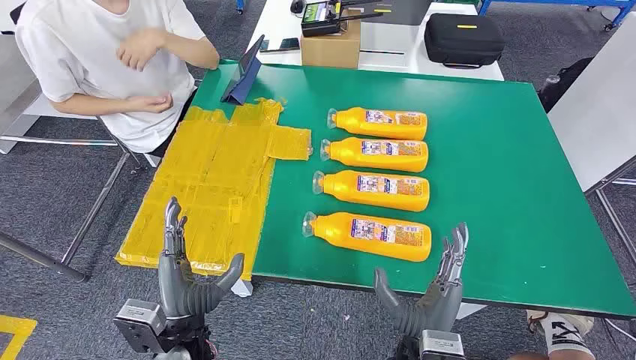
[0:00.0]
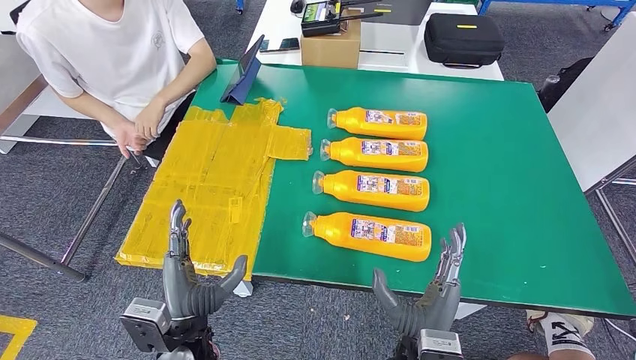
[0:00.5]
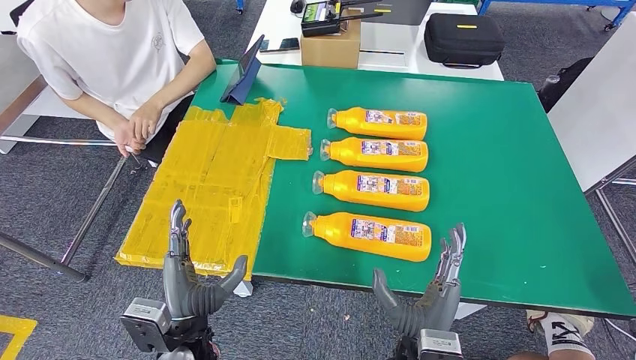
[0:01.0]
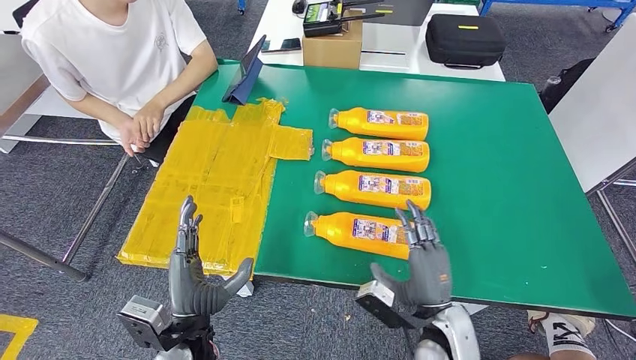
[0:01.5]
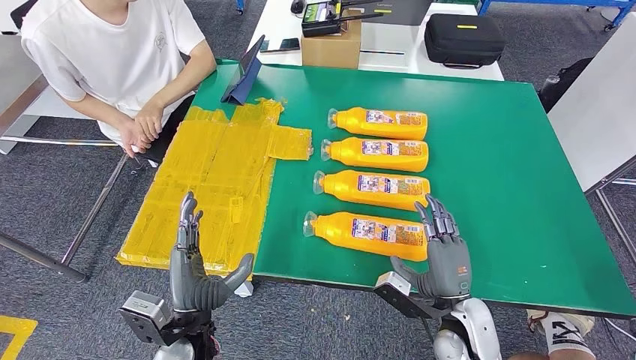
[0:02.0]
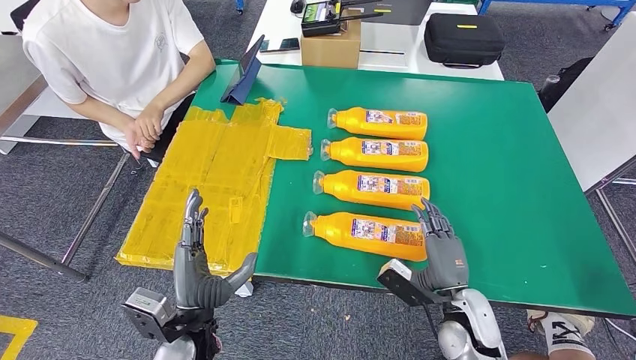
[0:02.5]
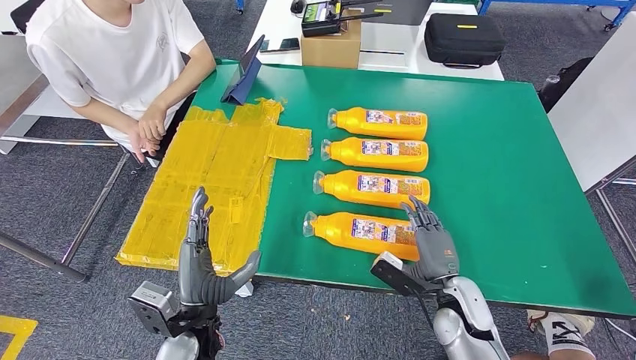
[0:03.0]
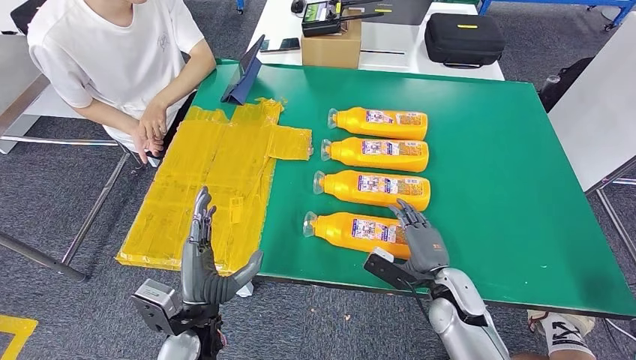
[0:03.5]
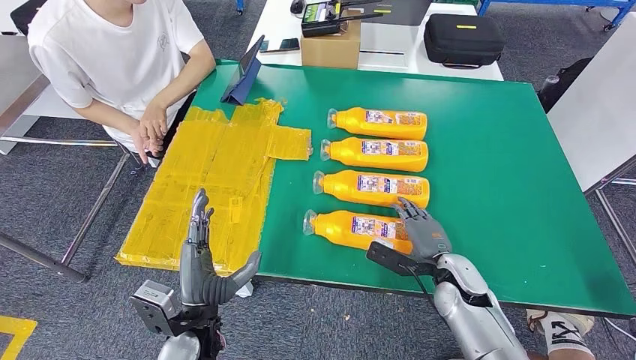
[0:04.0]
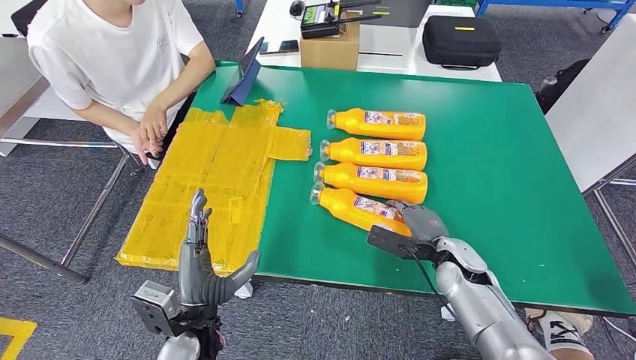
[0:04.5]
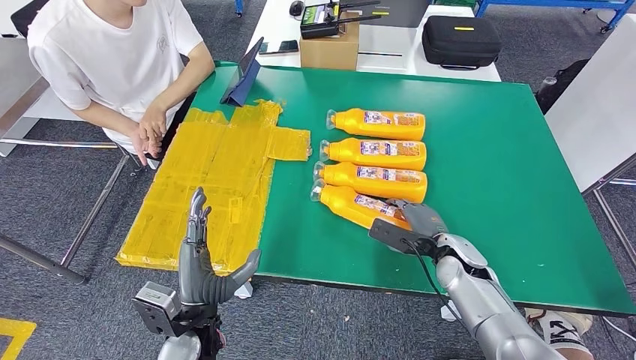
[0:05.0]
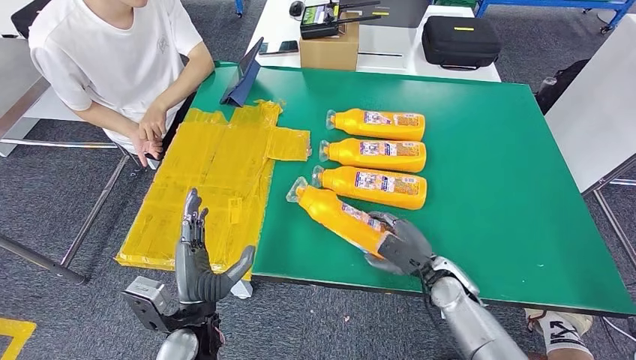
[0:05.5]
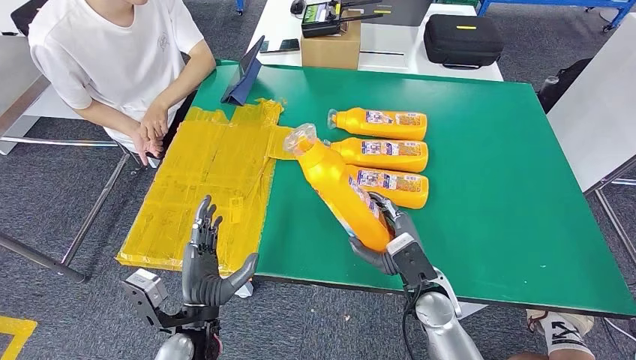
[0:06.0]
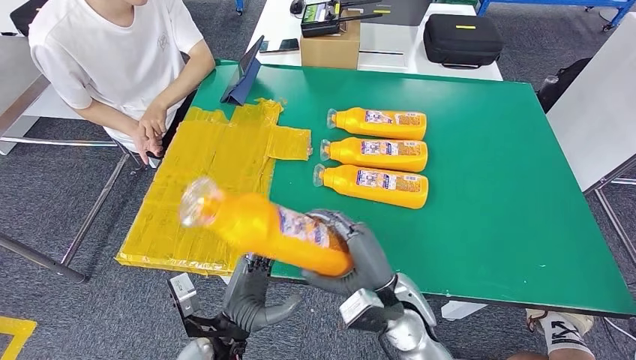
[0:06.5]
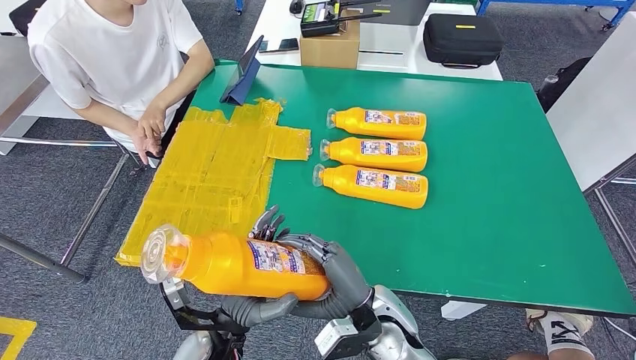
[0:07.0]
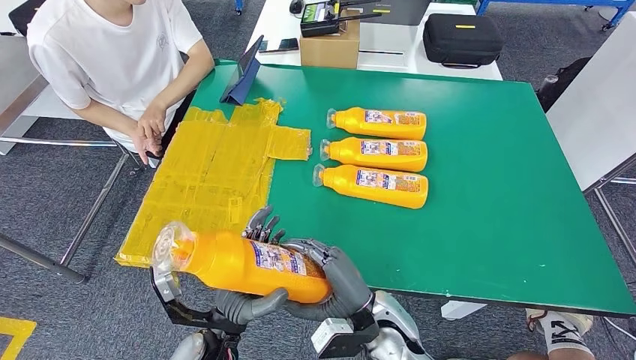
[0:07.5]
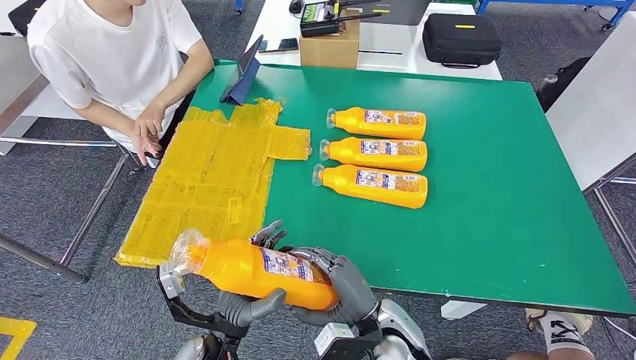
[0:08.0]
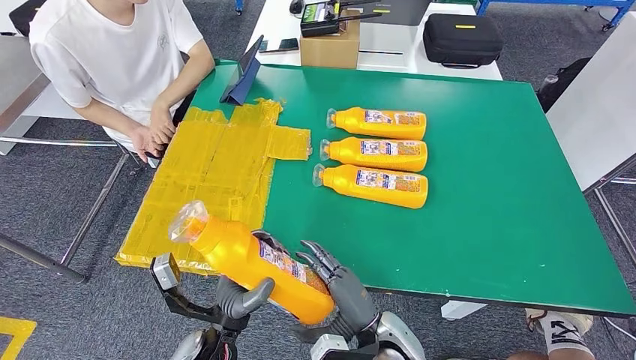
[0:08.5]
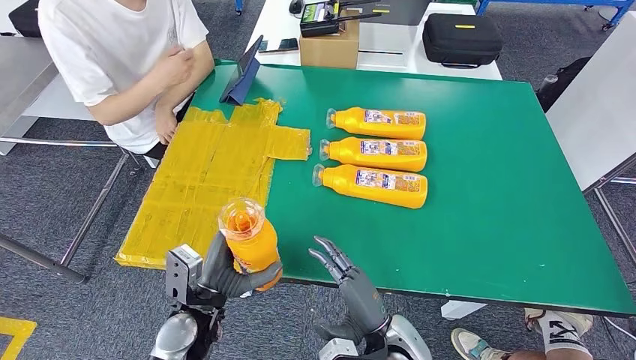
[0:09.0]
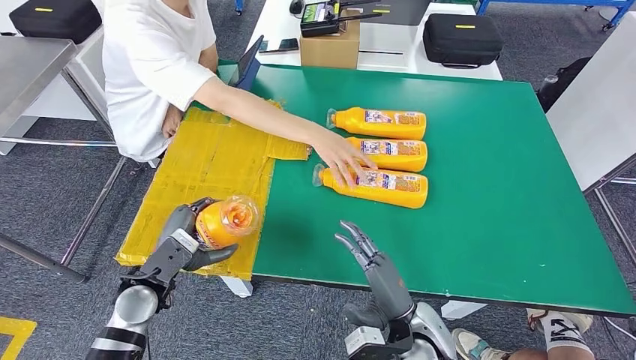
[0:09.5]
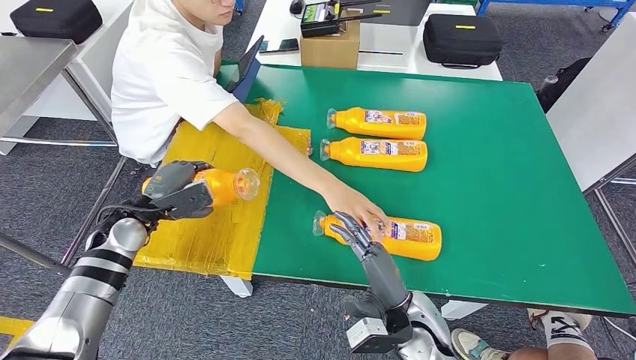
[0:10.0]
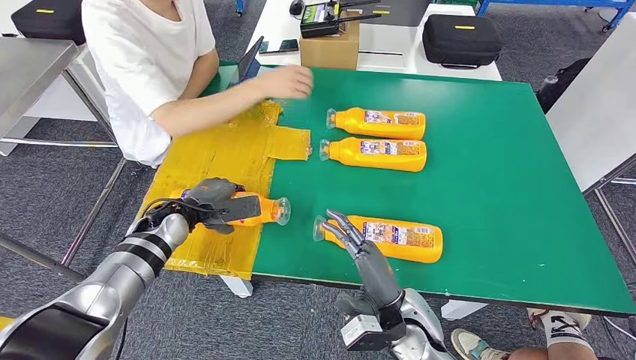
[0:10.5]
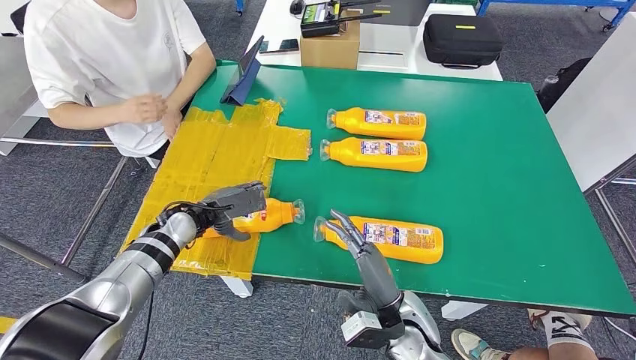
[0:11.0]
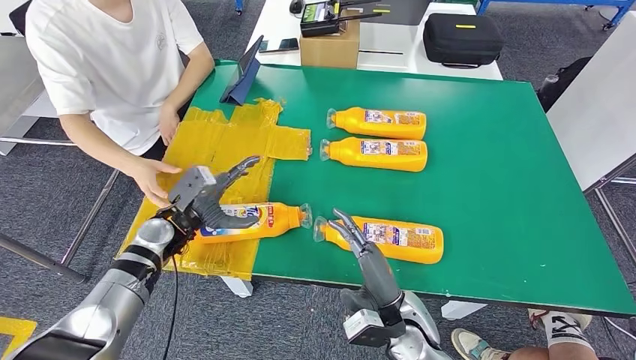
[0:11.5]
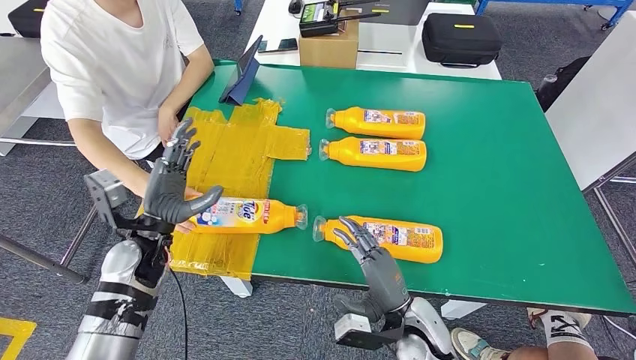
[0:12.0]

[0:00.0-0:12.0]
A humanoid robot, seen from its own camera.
Step, 0:00.0 to 0:06.0: Take the fast-moving consumer goods bottle from the table.
Step, 0:06.5 to 0:10.5: Flip the fast-moving consumer goods bottle to the front side.
0:02.0 to 0:04.0: The right hand is displaced forward by about 10 cm.
0:04.0 to 0:06.0: The right hand shifts approximately 5 cm to the left.
0:06.0 to 0:08.0: The right hand is displaced backward and to the left by about 10 cm.

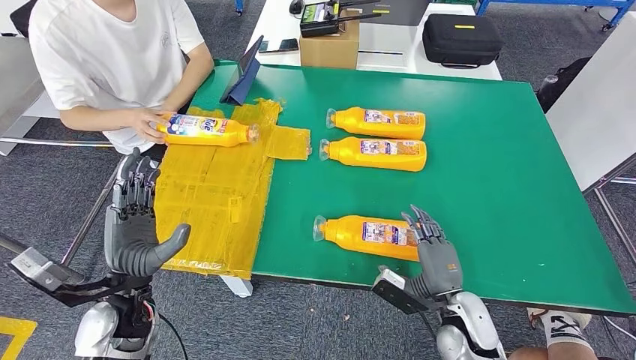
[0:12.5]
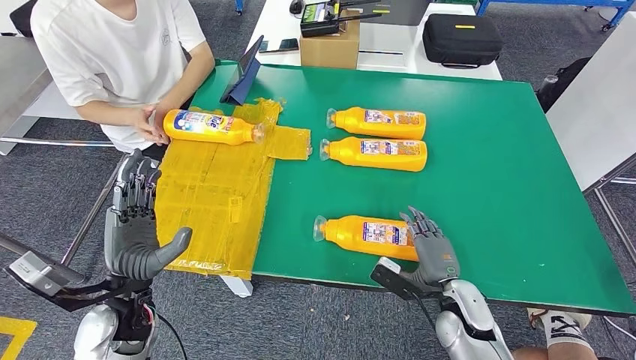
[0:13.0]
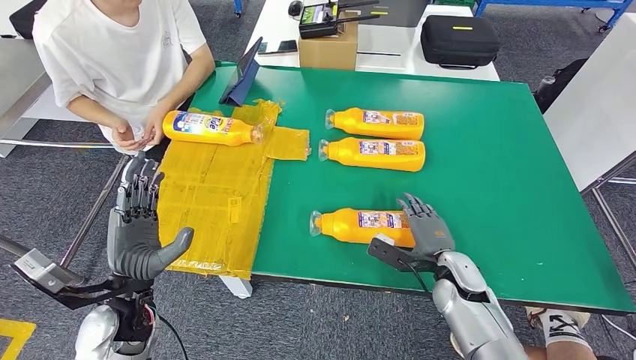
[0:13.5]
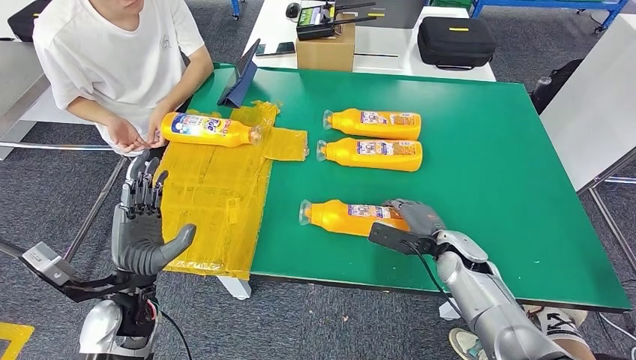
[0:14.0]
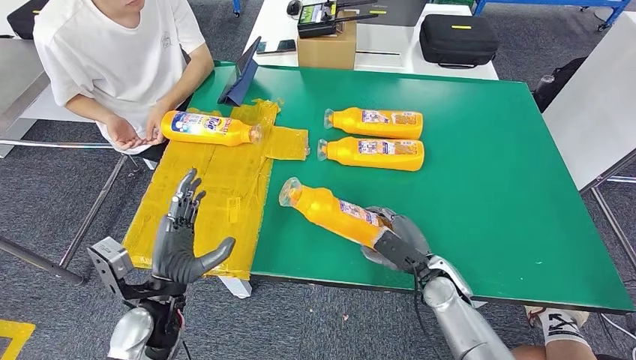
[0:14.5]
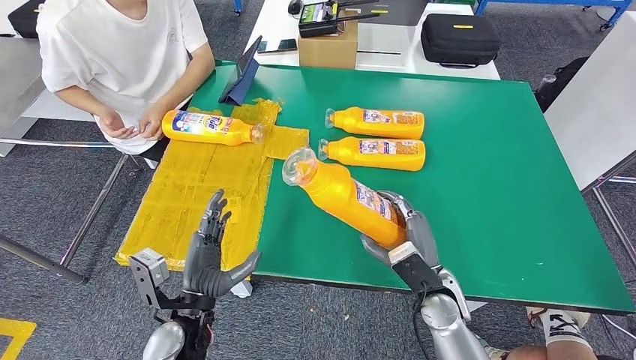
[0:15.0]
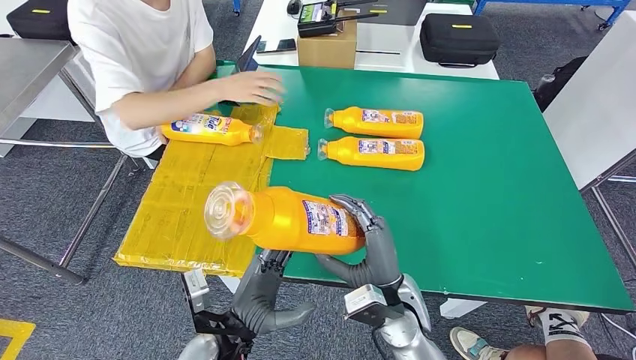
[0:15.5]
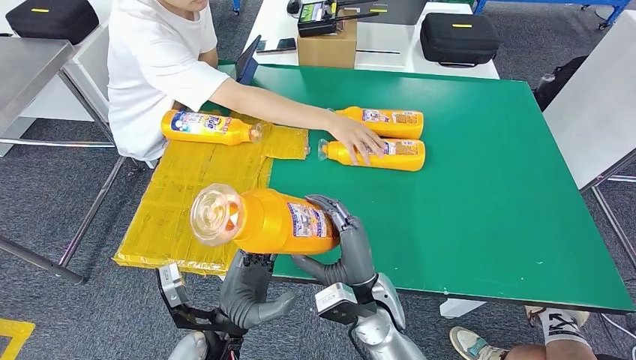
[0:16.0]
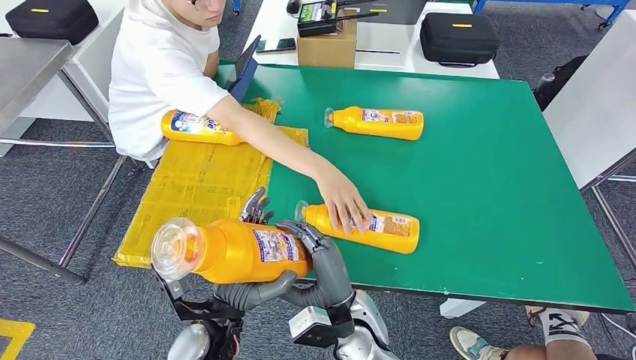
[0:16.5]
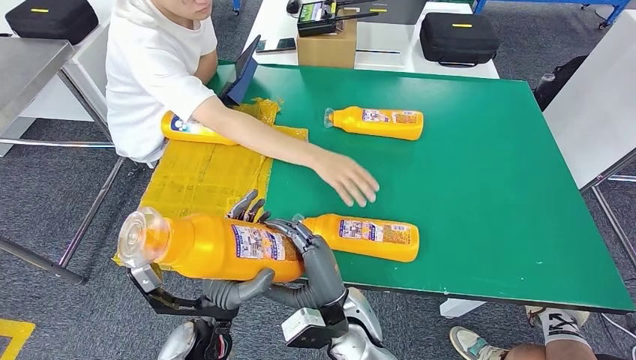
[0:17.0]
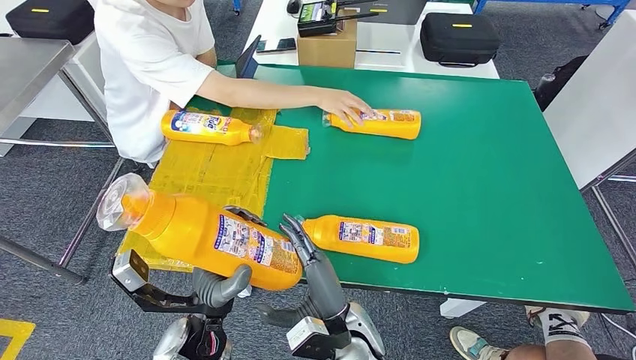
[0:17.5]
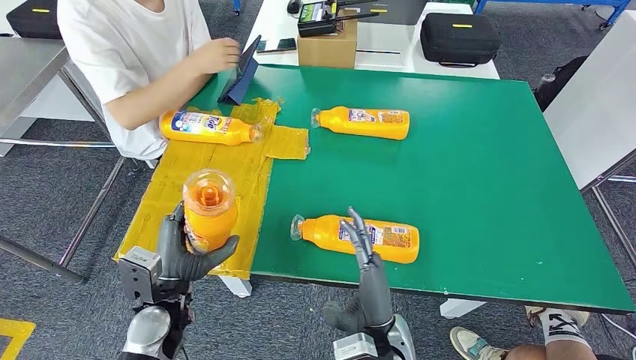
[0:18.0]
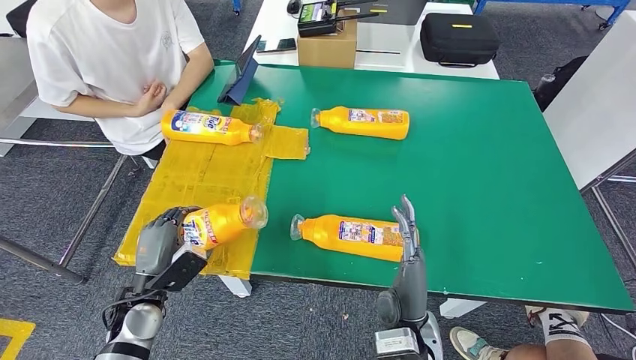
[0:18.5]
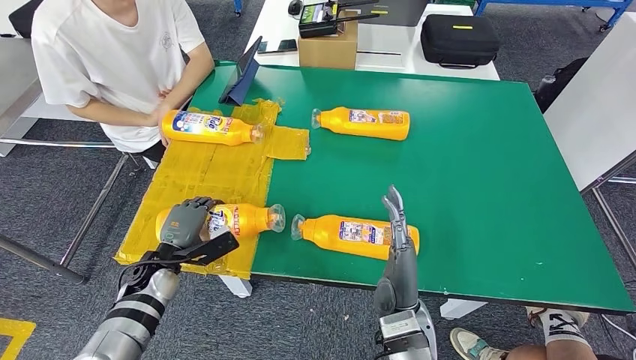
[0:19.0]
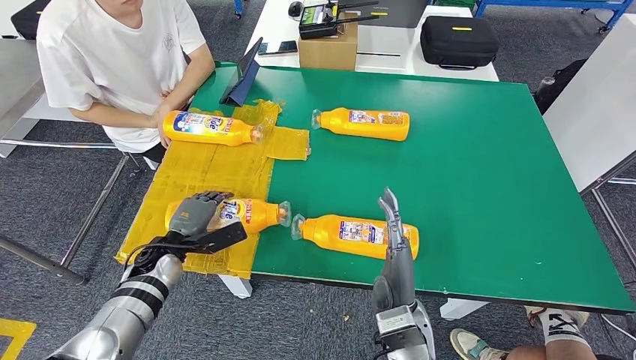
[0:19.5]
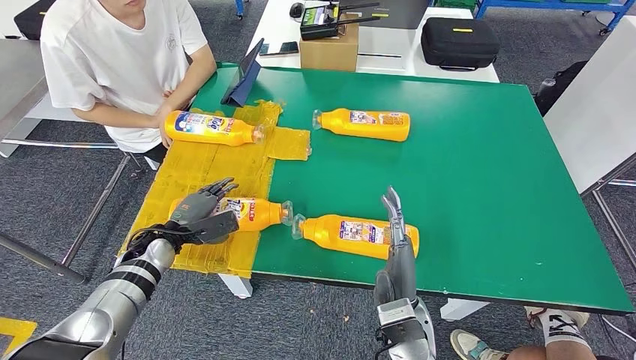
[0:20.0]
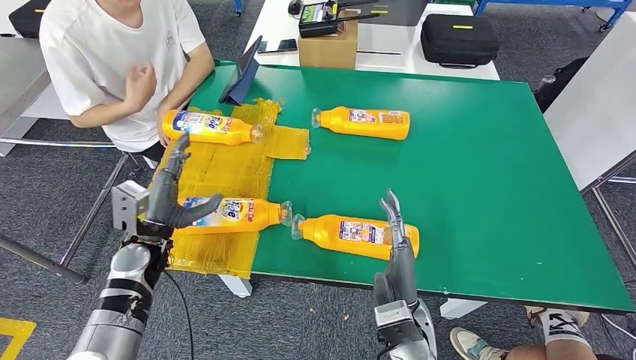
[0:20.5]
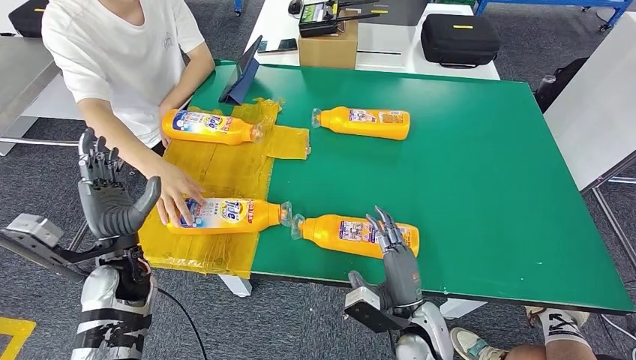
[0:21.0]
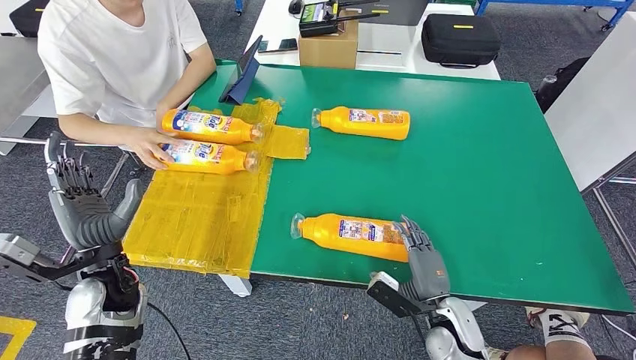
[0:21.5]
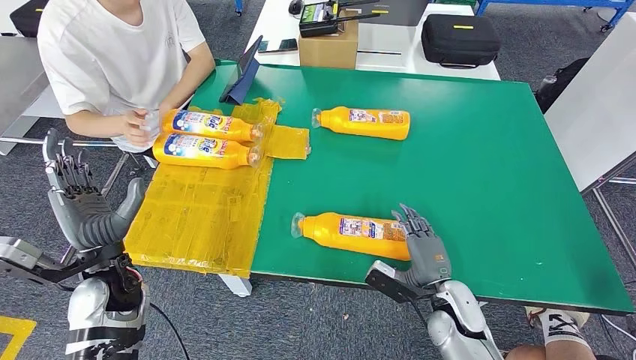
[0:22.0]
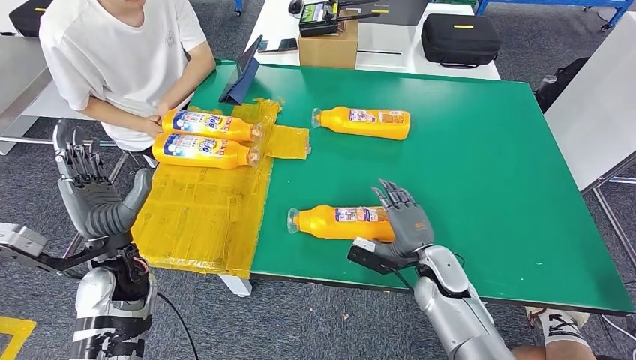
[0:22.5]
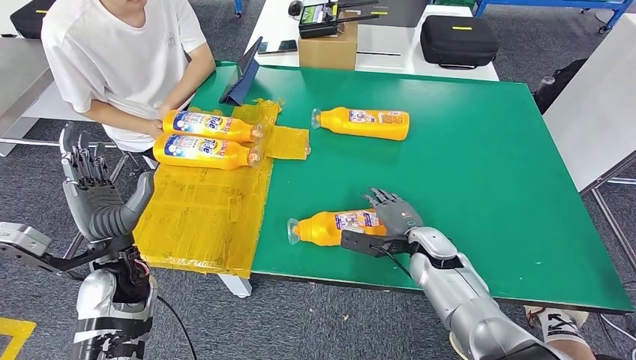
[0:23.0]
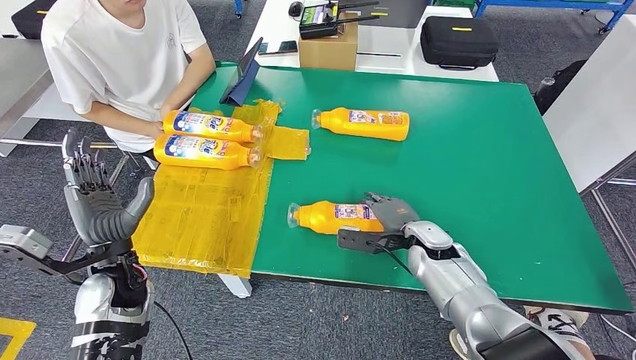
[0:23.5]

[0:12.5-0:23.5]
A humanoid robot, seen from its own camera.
Step, 0:12.5 to 0:15.0: Pick up the fast-moving consumer goods bottle from the table.
Step, 0:16.0 to 0:19.5: Flip the fast-moving consumer goods bottle to the front side.
